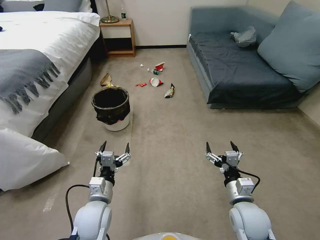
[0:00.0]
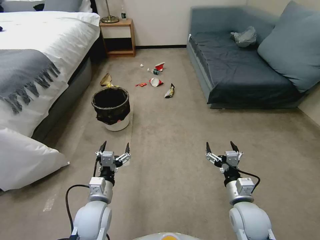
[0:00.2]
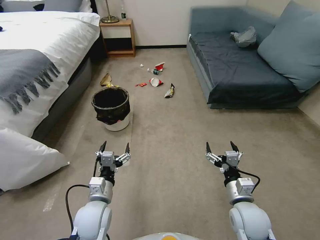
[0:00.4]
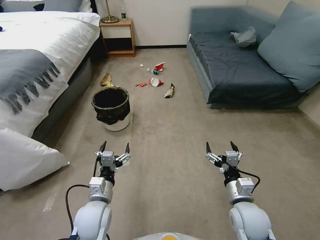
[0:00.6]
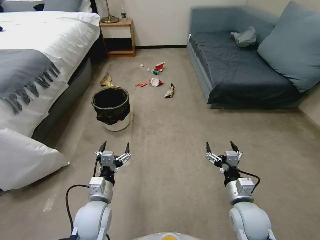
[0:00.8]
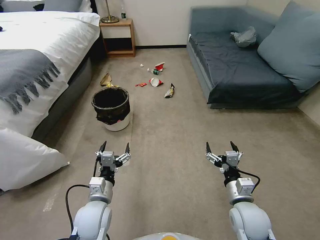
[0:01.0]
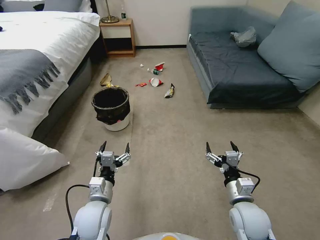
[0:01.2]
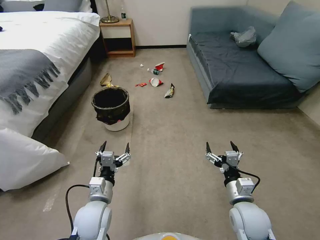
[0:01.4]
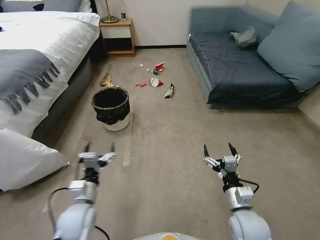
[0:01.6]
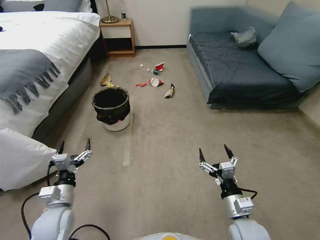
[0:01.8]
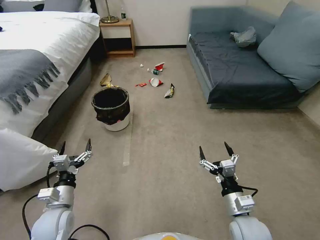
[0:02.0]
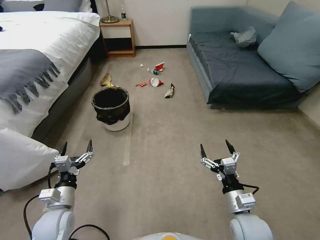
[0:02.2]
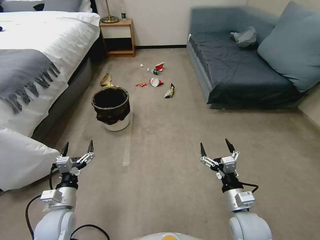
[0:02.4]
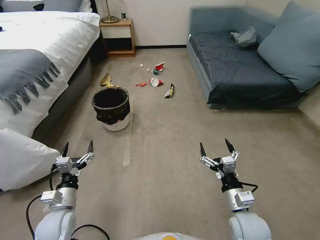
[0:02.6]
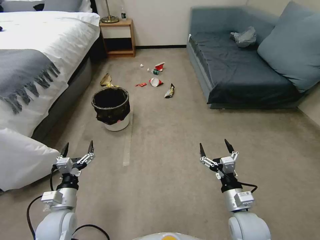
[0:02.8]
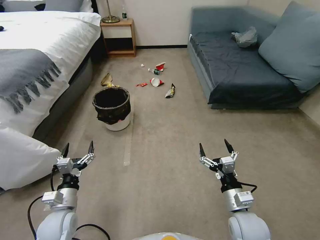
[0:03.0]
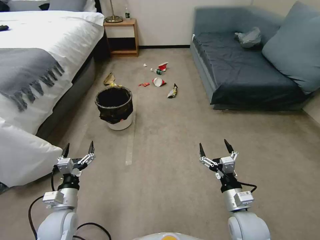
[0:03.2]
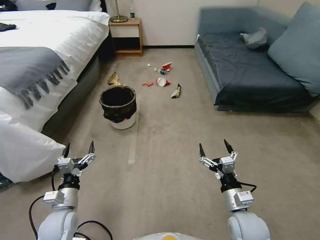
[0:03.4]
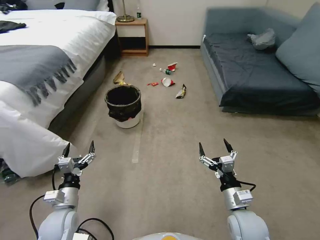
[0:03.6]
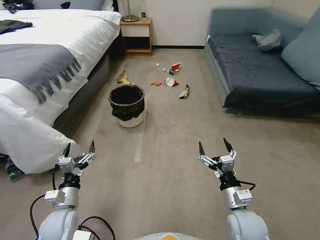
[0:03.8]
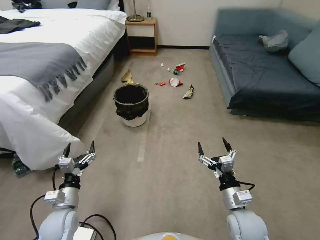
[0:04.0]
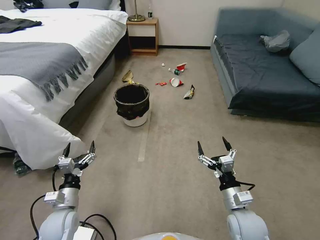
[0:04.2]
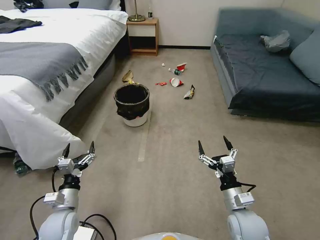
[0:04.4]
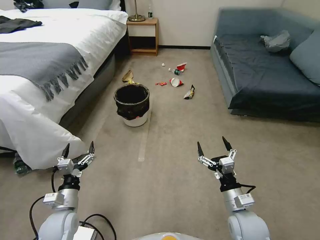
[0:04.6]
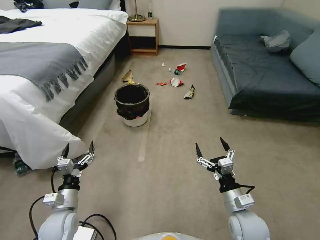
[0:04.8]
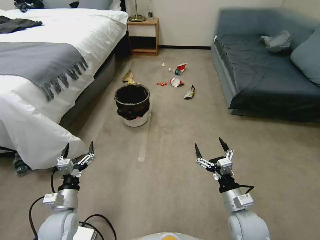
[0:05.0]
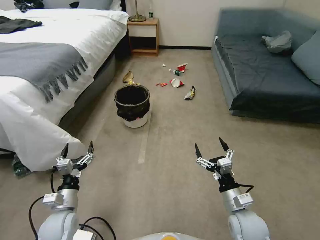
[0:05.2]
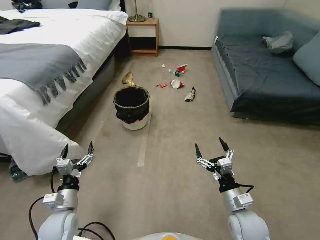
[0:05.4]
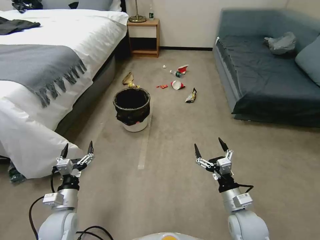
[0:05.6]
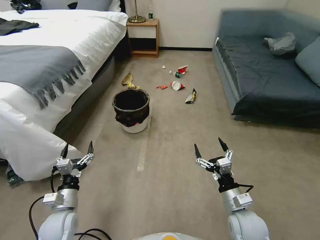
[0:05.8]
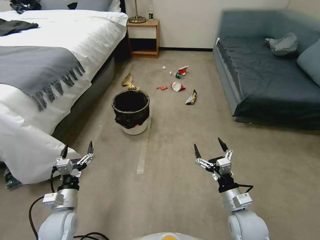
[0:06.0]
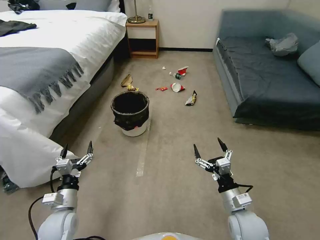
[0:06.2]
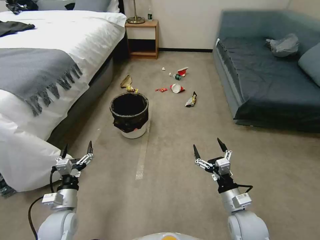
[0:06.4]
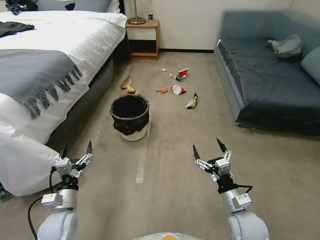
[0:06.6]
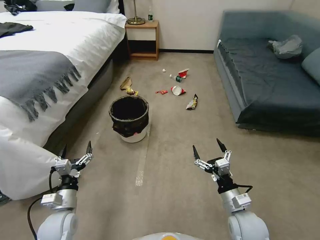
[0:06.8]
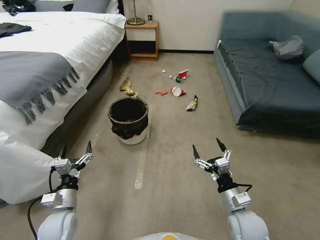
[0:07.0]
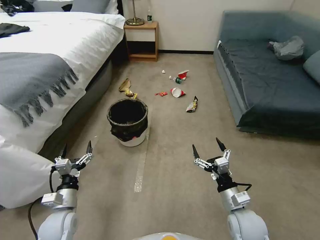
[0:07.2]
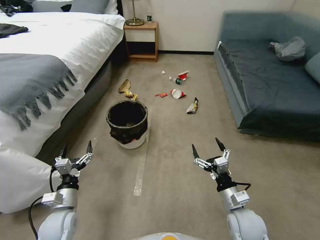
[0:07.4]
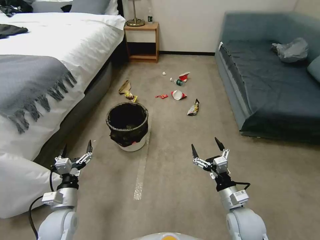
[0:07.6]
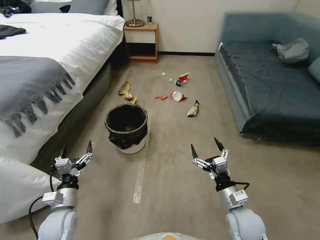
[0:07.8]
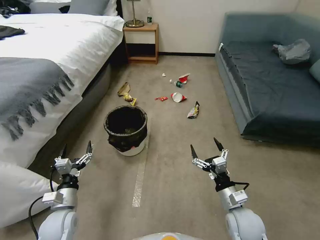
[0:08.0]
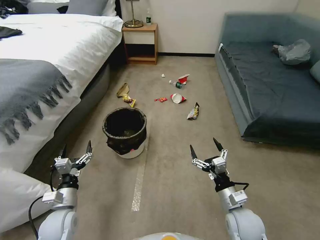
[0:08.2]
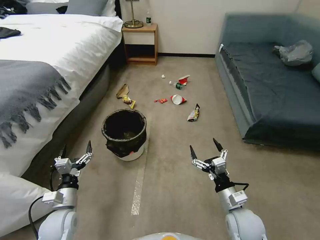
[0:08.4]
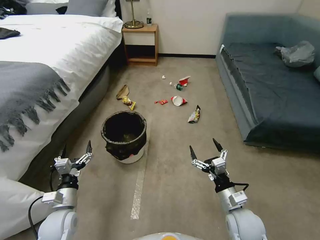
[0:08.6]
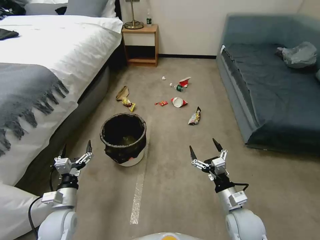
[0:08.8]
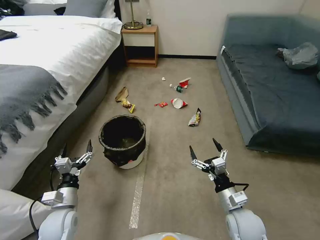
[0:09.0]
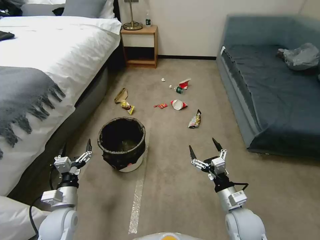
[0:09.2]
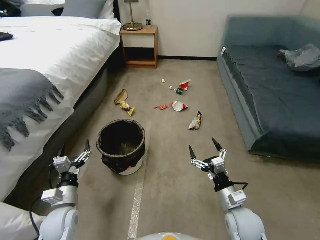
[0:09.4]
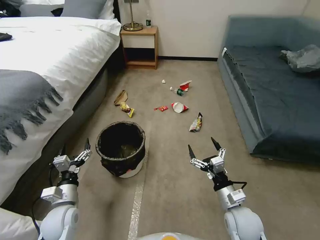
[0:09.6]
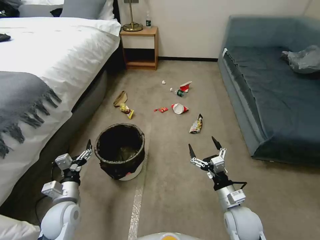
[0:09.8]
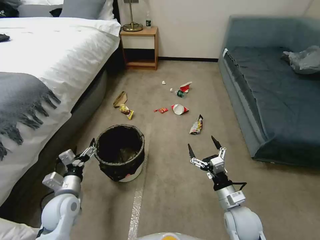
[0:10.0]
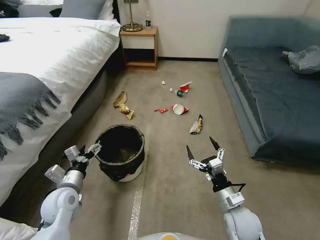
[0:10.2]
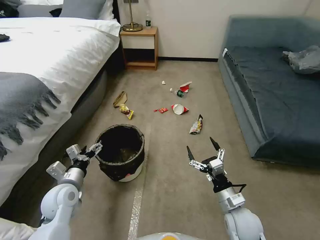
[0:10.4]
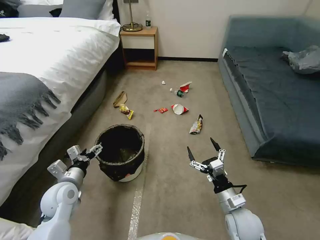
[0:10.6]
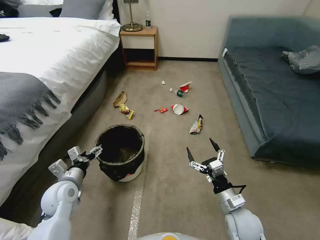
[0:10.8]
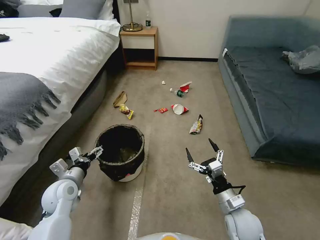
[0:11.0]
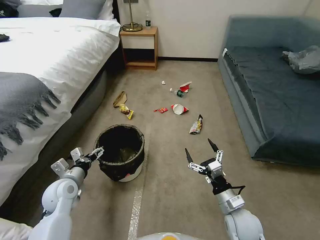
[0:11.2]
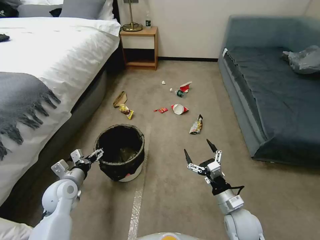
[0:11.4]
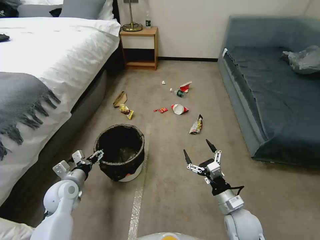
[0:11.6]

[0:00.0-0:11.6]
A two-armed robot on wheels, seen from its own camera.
Task of the whole recording: Pick up the trash can from the floor.
0:01.4 to 0:02.8: The left gripper shifts approximately 10 cm to the left.
0:04.4 to 0:05.8: The two grippers keep their place.
0:08.8 to 0:10.2: The left gripper goes some 5 cm upward.
0:10.2 to 0:11.6: There are only small adjustments of the grippers.

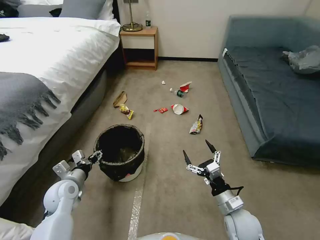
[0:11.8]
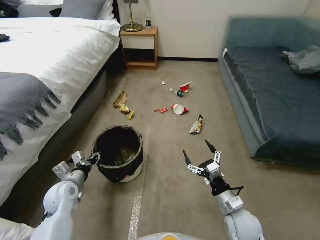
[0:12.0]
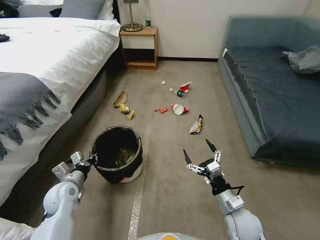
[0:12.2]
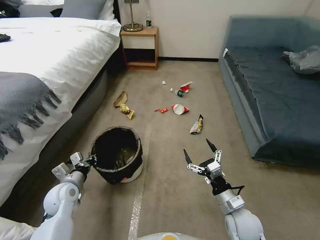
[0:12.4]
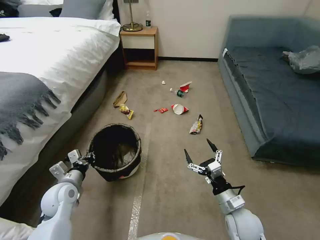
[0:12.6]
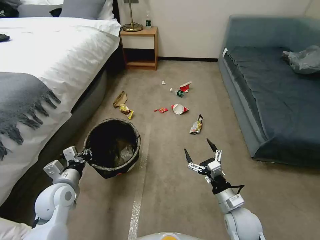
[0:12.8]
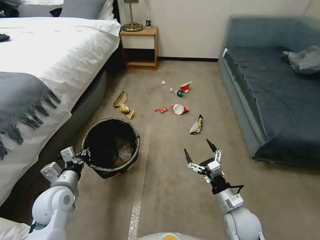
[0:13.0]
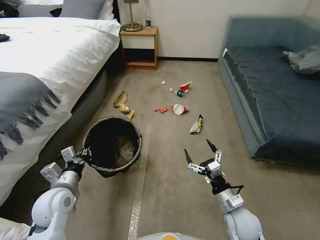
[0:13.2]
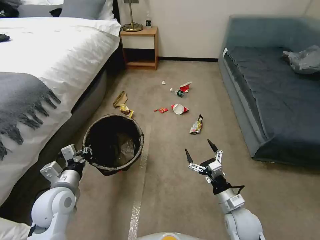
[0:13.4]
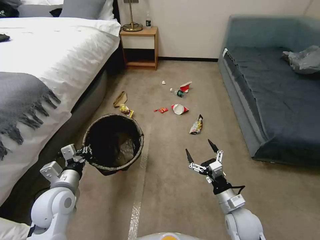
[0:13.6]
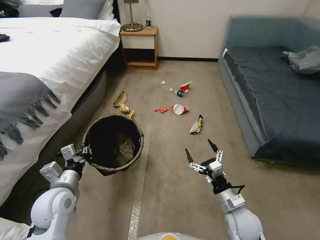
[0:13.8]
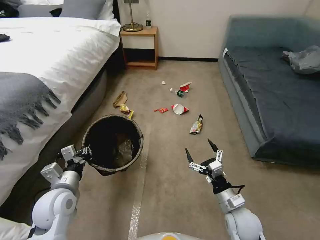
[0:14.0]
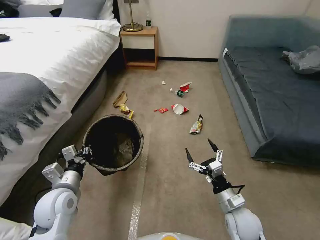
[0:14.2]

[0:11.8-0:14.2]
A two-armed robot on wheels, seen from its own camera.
Task of the whole recording: Pick up the trash can from the floor.
0:11.8 to 0:13.0: The left gripper shifts by approximately 5 cm, and closes its fingers.
0:13.0 to 0:14.2: The grippers move only a little.

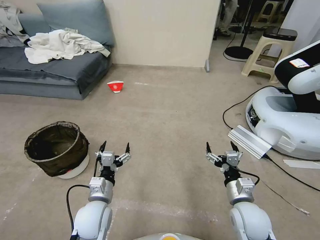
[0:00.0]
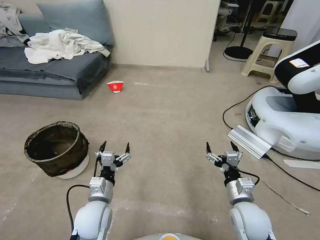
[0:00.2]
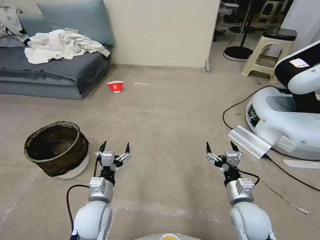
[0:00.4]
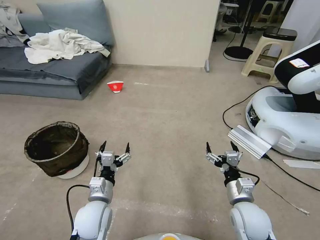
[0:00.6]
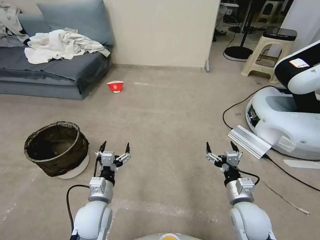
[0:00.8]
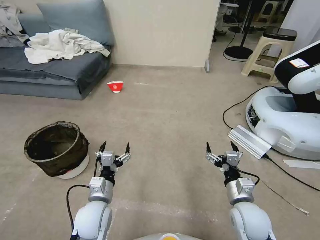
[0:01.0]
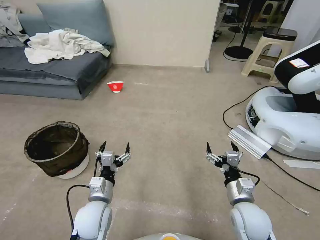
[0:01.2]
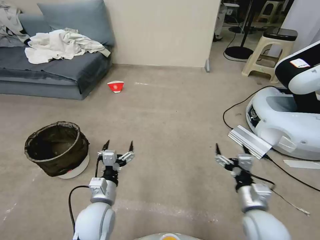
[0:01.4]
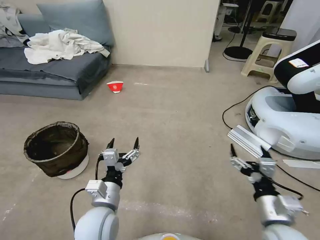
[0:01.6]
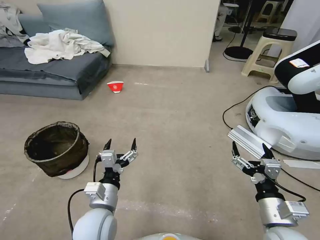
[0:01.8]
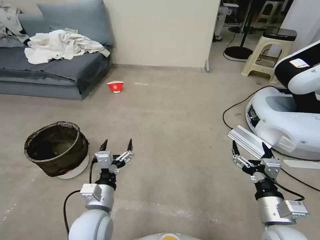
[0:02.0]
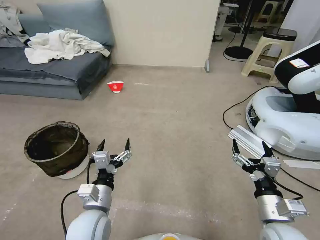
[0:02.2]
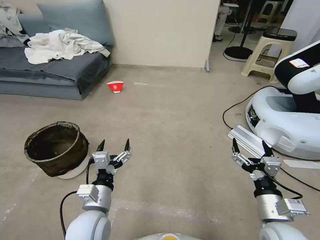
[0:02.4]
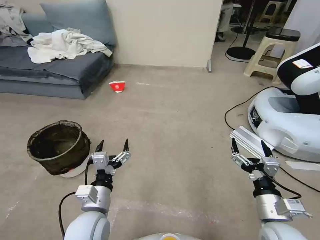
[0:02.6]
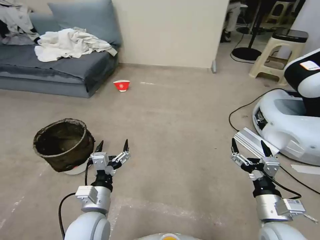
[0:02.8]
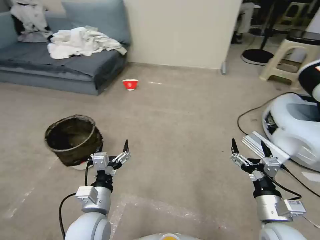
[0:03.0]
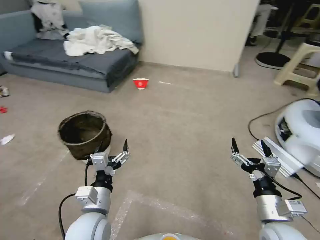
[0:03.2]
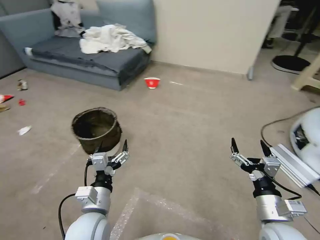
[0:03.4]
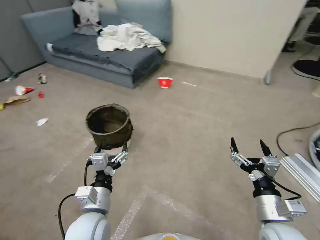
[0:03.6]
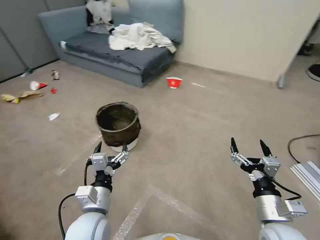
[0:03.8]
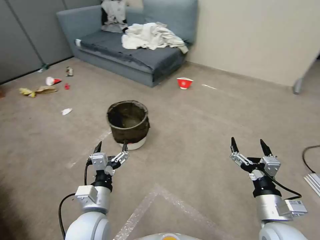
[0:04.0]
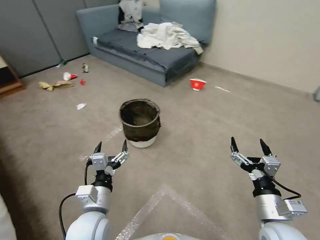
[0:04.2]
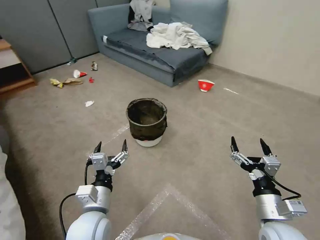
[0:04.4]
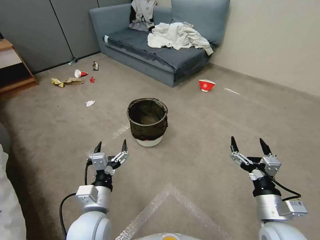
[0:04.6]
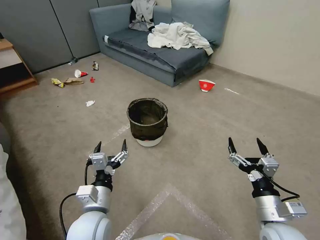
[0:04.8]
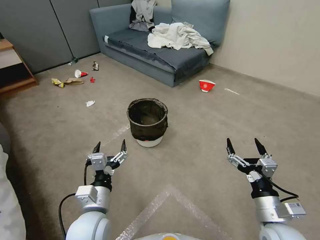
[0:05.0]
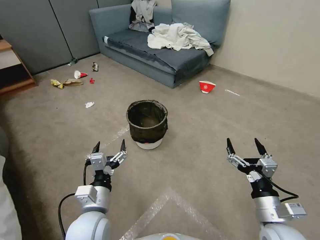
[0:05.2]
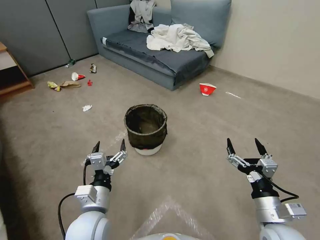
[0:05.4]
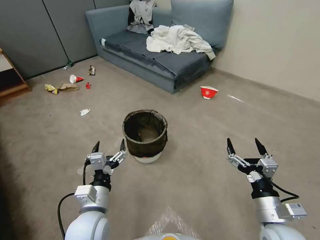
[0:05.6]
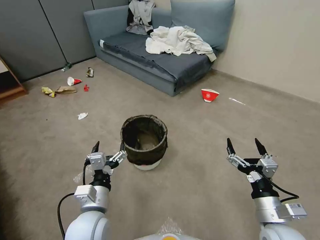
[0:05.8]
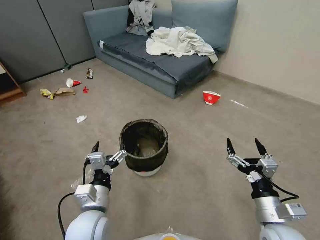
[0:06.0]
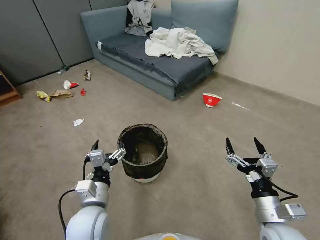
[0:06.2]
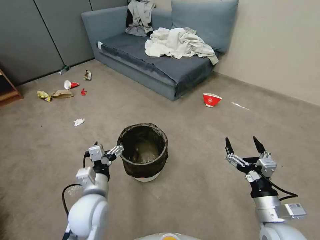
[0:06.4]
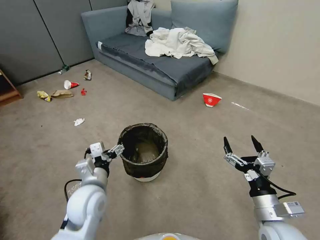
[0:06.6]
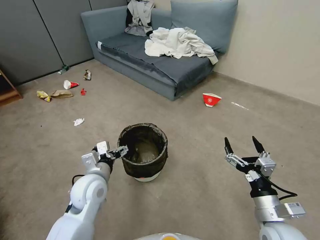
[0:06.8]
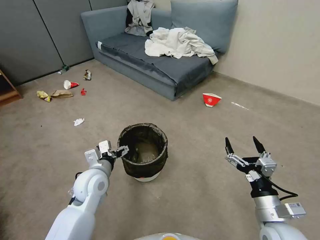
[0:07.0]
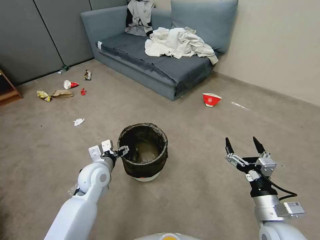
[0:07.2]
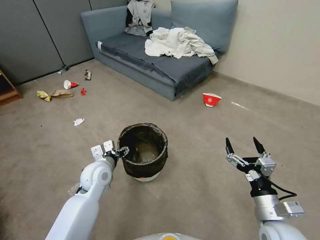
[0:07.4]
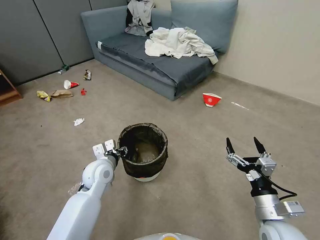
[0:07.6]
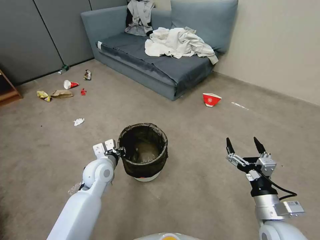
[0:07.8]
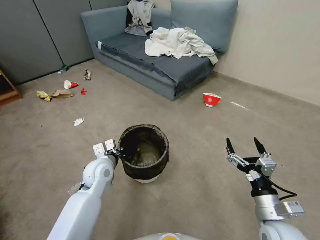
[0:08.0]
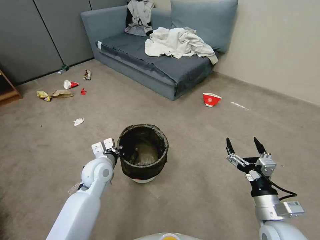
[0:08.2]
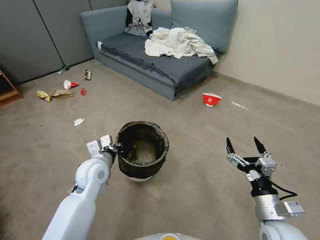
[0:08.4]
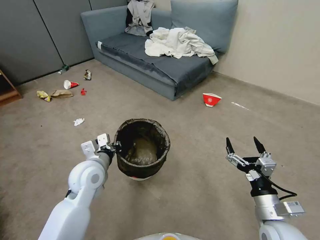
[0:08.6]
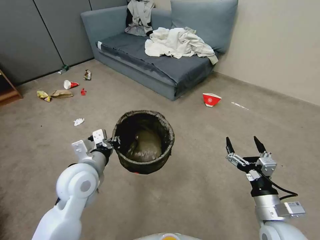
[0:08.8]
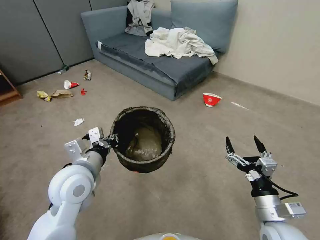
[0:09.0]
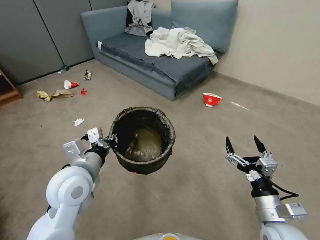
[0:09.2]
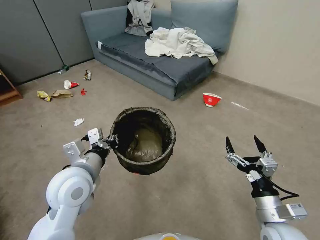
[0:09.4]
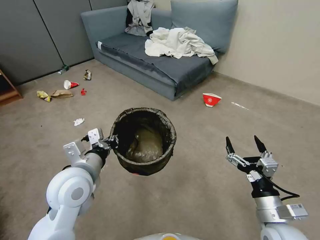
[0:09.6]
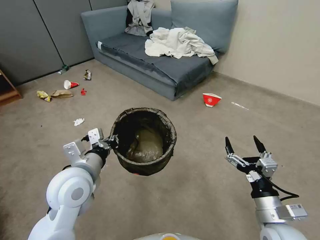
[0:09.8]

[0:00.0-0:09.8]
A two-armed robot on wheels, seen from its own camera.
Task of the whole recording: Pick up the trash can from the floor.
0:05.6 to 0:07.0: The left gripper heads forward, covering roughly 10 cm.
0:07.0 to 0:08.4: The left gripper closes its fingers.
0:08.4 to 0:09.8: The left gripper travels upward and backward by roughly 10 cm.
